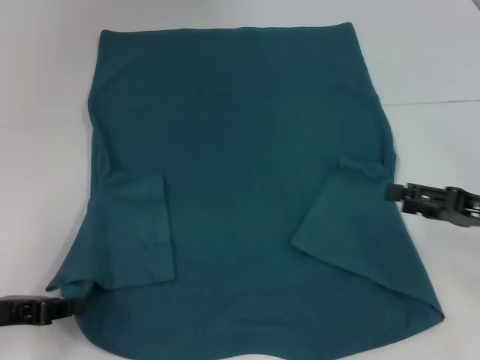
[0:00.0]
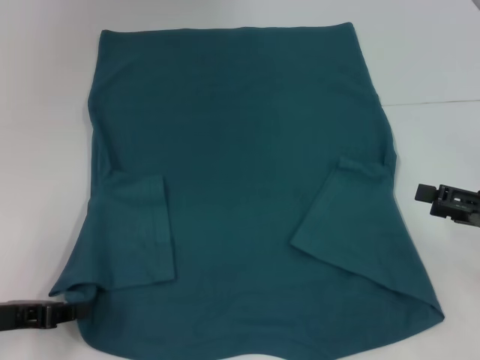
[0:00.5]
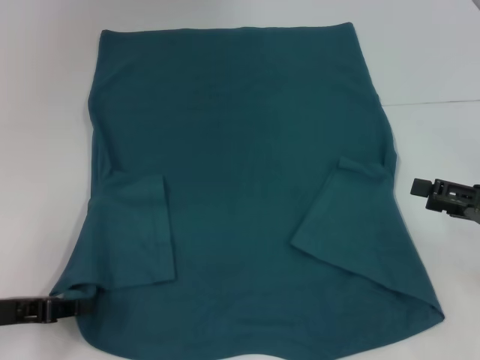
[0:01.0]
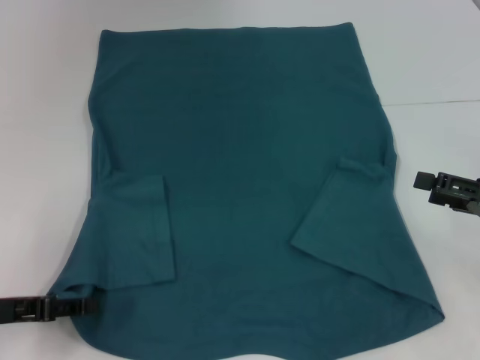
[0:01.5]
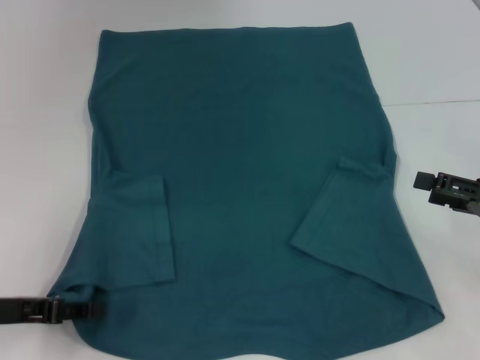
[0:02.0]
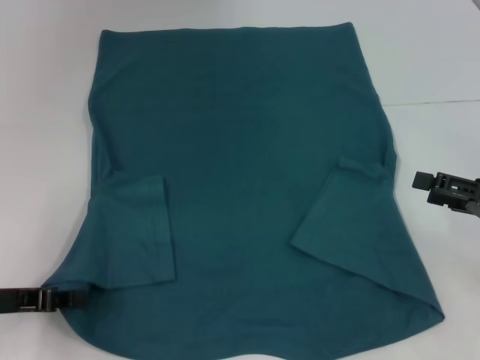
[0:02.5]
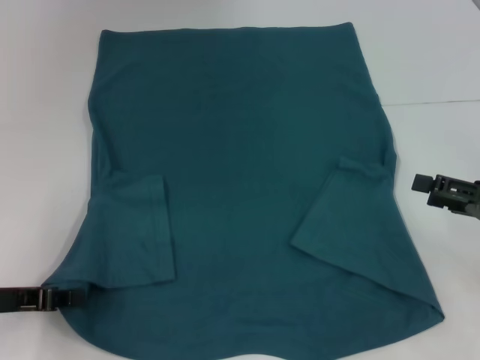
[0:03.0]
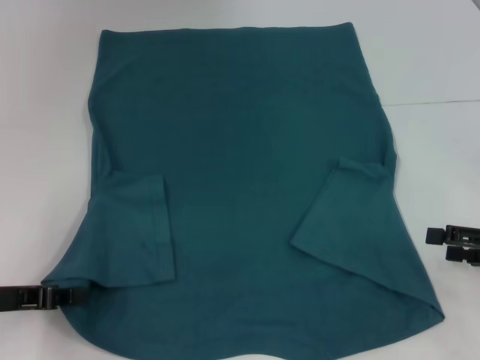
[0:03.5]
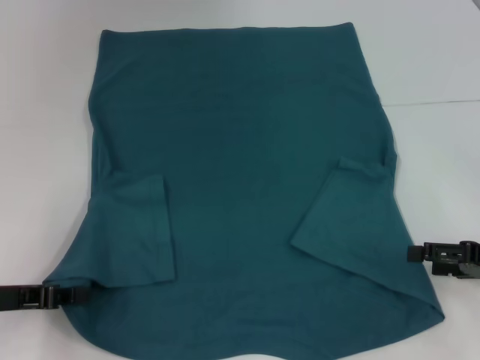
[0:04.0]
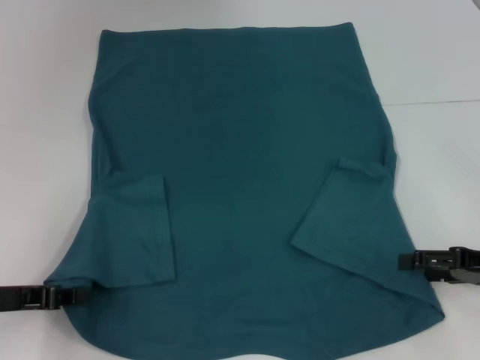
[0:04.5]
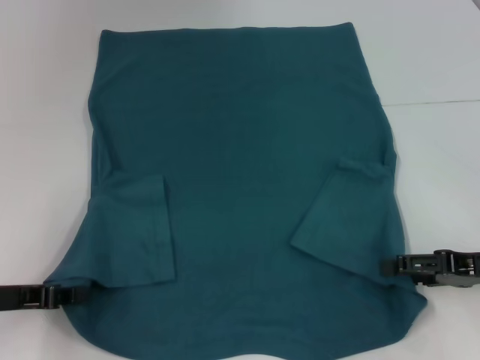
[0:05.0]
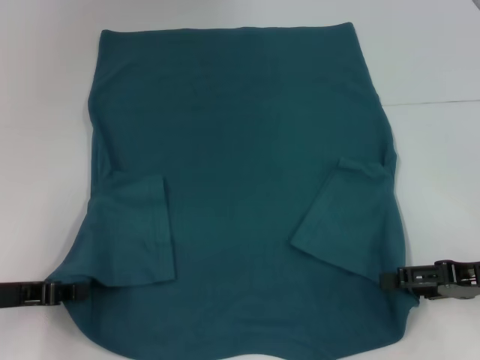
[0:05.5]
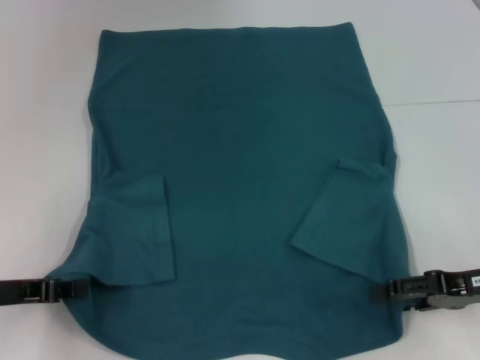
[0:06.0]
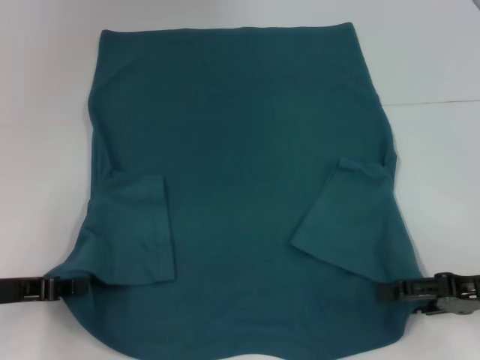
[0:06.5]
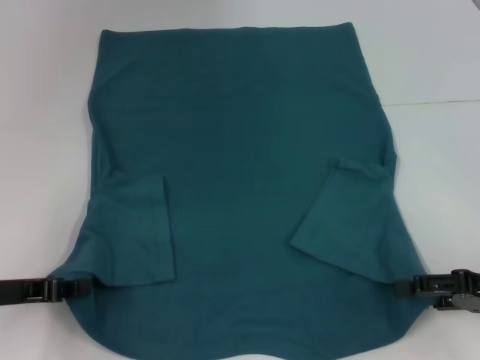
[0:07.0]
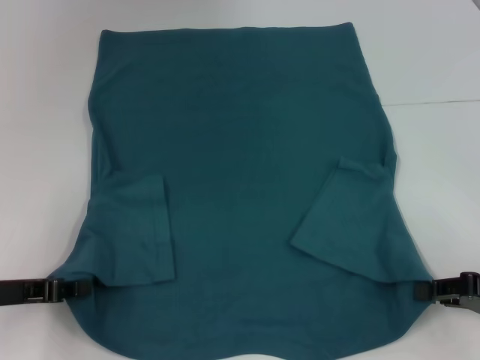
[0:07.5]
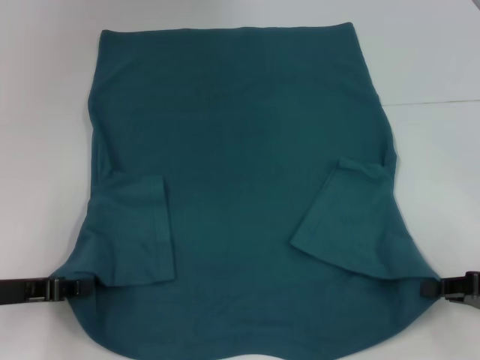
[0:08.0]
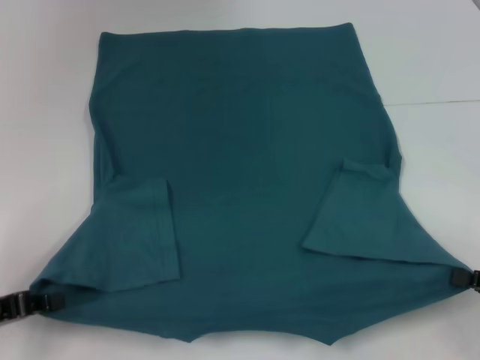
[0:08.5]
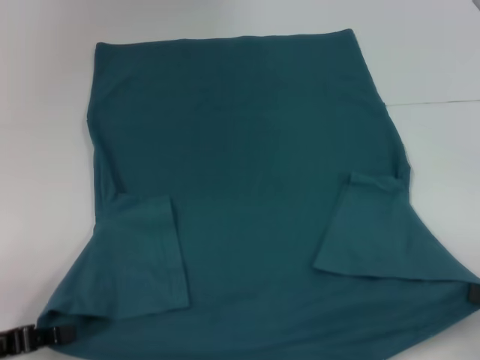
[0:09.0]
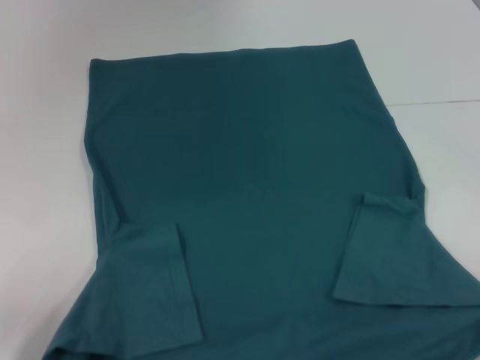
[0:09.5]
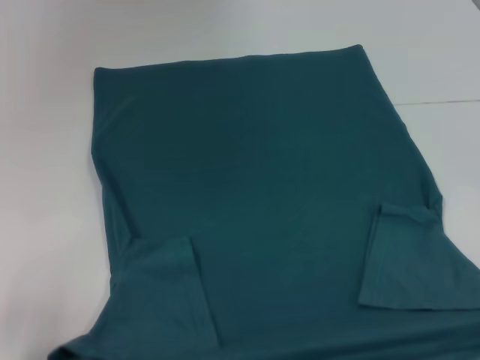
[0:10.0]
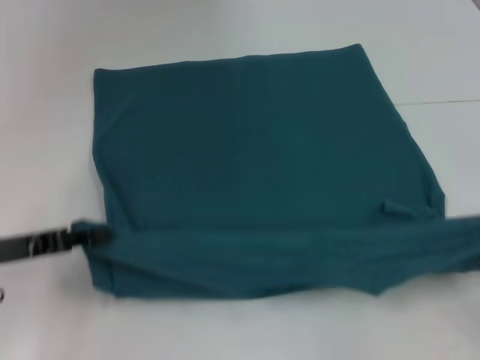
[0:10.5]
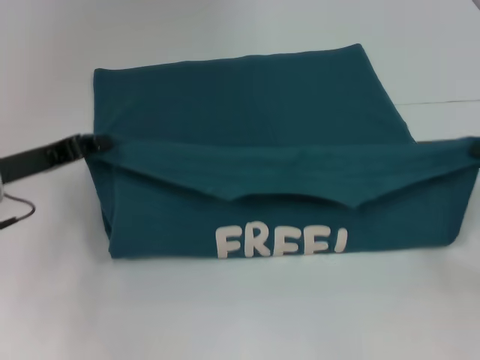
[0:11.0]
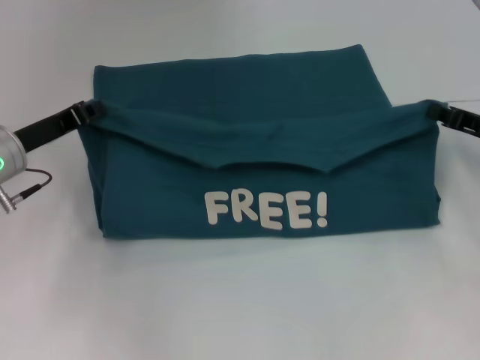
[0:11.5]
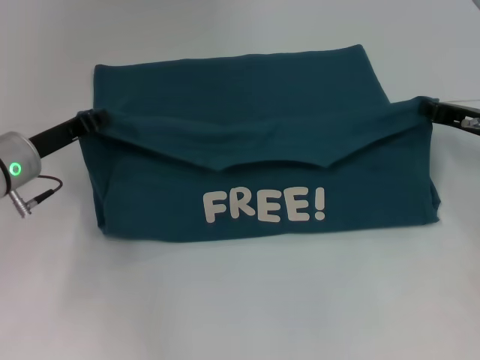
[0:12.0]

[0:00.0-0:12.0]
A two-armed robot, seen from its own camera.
Step, 0:00.0 to 0:02.5: Grab the bottom left corner with your left hand.
Step, 0:03.0 to 0:08.0: Grab the bottom right corner with your right hand.
0:00.0 to 0:02.0: The left gripper opens up.
0:02.0 to 0:04.0: The left gripper closes.
0:04.0 to 0:06.0: The grippers move only a little.
0:06.0 to 0:08.0: The right gripper shifts by roughly 5 cm, and closes its fingers.
0:08.0 to 0:10.0: The right gripper is displaced backward and to the right by some 15 cm. The left gripper heads backward, covering about 10 cm.
0:10.0 to 0:12.0: The two grippers go about 25 cm forward.

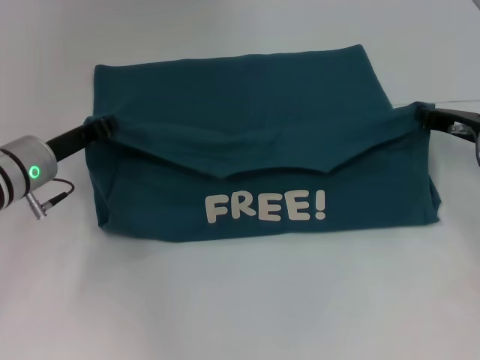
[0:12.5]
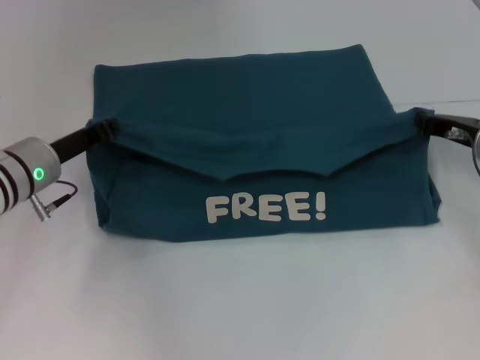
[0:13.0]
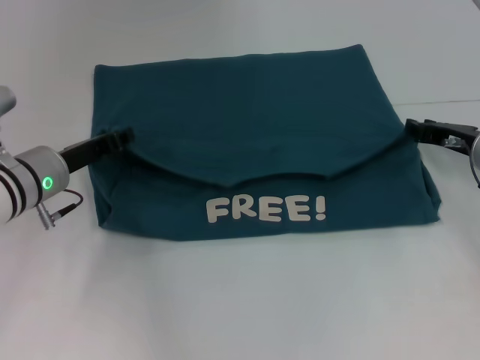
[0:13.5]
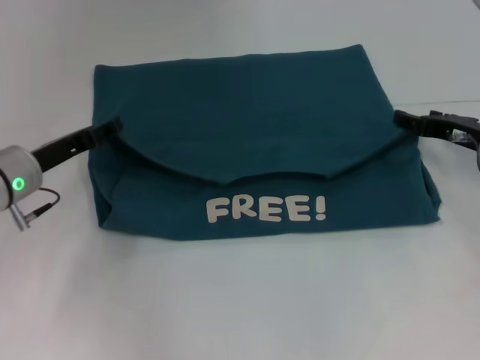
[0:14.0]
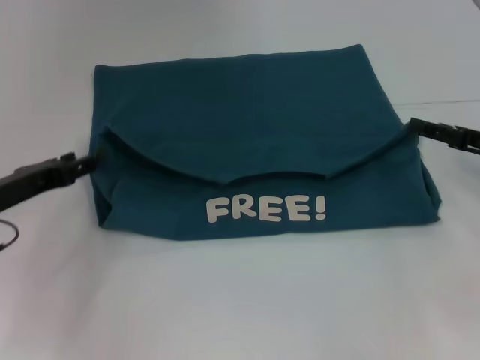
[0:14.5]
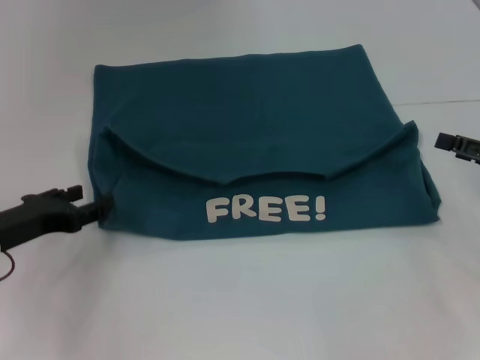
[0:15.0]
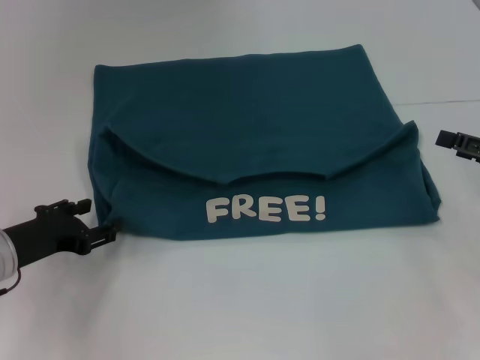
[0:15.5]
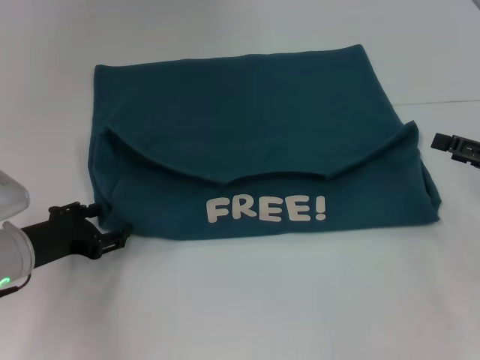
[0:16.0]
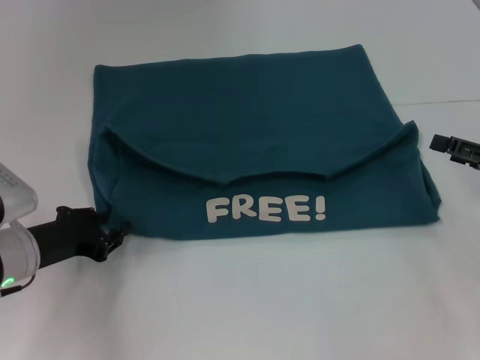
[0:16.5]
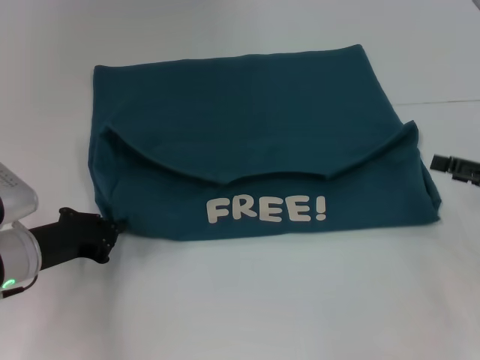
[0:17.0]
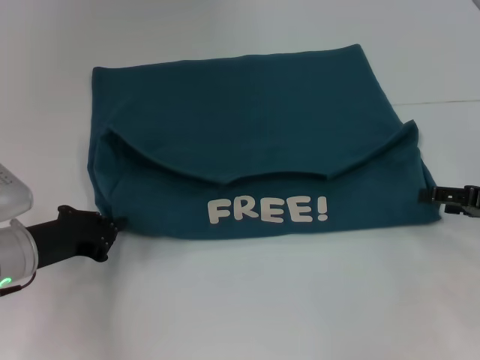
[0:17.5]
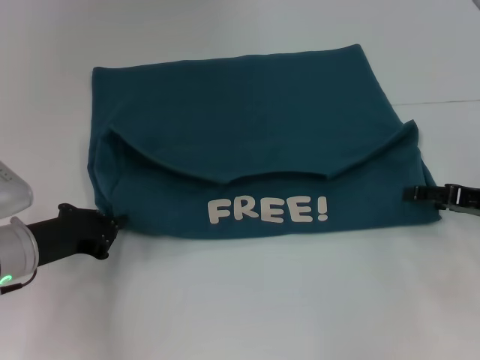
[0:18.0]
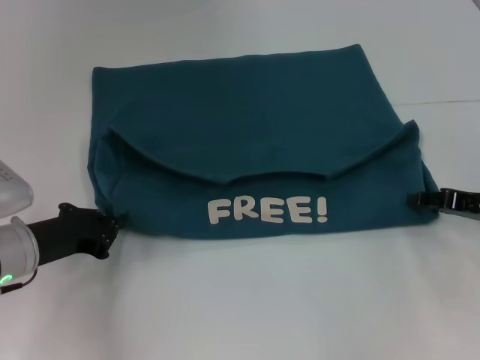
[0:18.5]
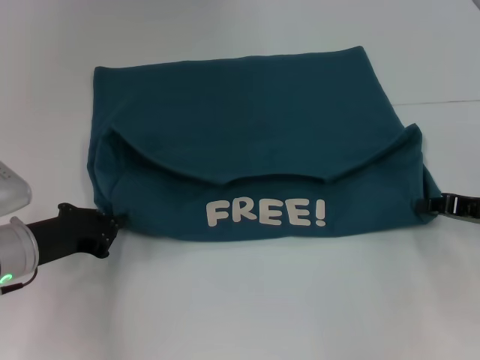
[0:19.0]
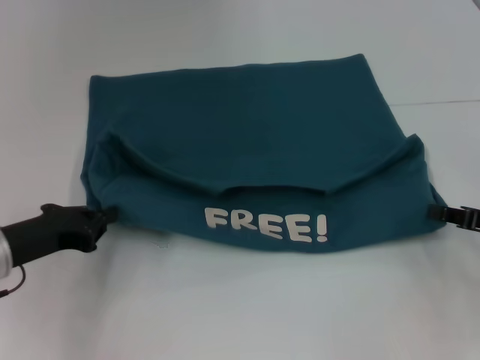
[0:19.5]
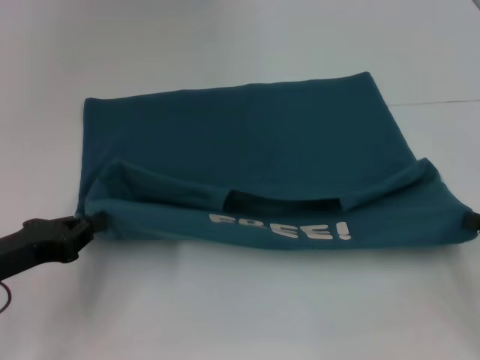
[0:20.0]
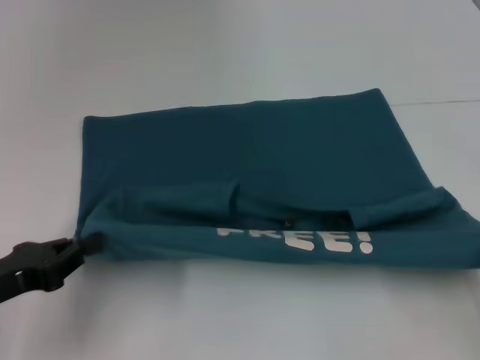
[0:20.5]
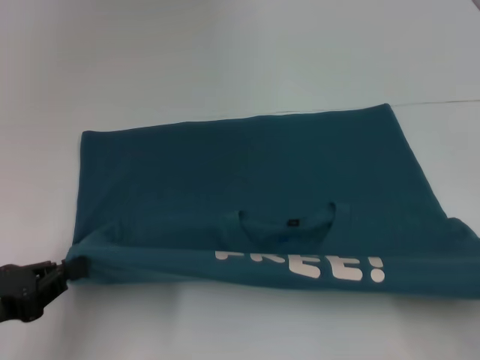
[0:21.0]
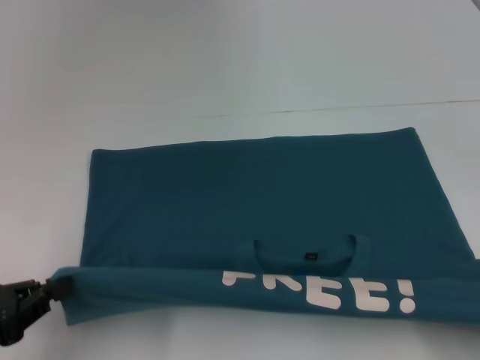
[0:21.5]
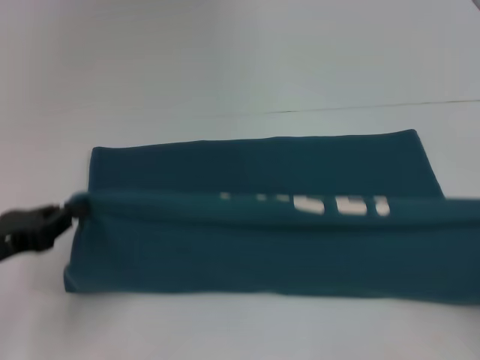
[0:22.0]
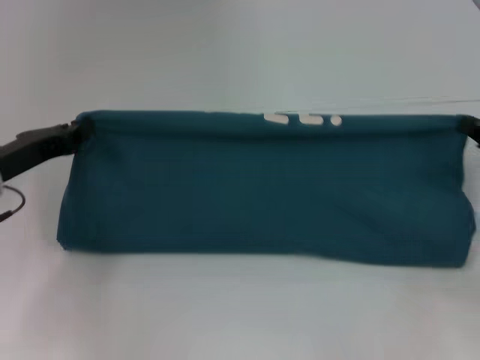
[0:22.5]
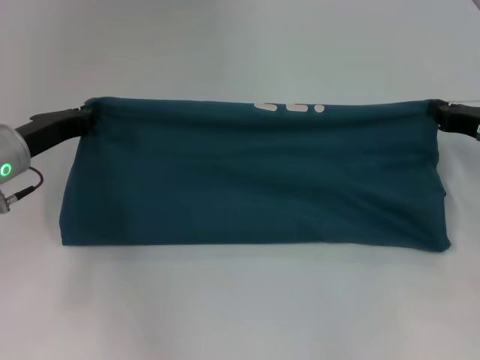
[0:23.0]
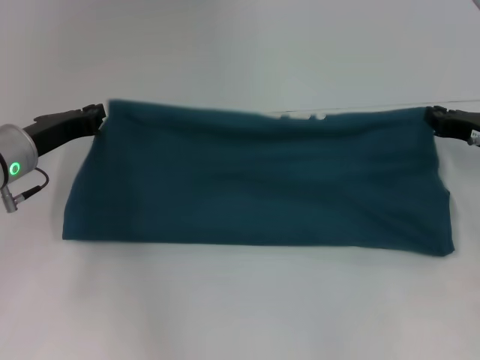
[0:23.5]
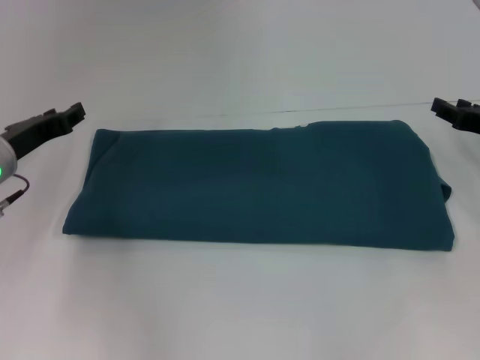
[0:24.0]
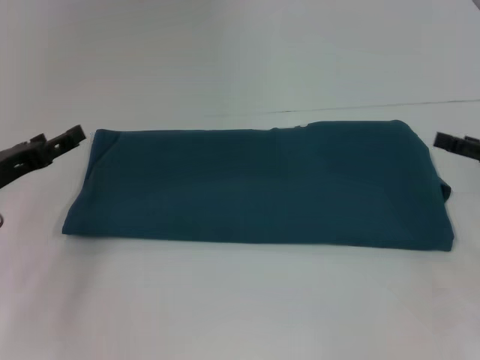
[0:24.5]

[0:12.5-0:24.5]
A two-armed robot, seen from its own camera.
Step, 0:14.0 to 0:20.5: Pull the clothes with your left hand.
Step, 0:14.0 to 0:20.5: Pull the clothes with your right hand.
Step, 0:21.0 to 0:23.5: Fold the clothes to the left.
Step, 0:21.0 to 0:23.5: Fold the clothes to the right.
0:12.5 to 0:14.5: The right gripper heads backward, covering some 5 cm, and opens up. Meanwhile the left gripper is displaced backward and to the left by roughly 10 cm, and opens its fingers.
0:14.5 to 0:16.5: The left gripper moves roughly 5 cm.
0:16.5 to 0:18.5: The left gripper closes up.
0:18.5 to 0:20.5: The left gripper travels backward by about 10 cm. Meanwhile the right gripper travels backward by some 15 cm, and closes up.
0:20.5 to 0:22.5: The two grippers go approximately 15 cm forward.
0:22.5 to 0:24.5: The right gripper opens; the left gripper opens up.

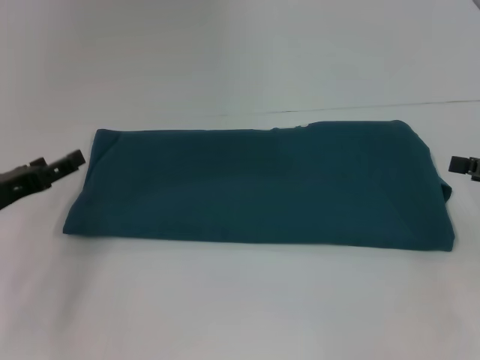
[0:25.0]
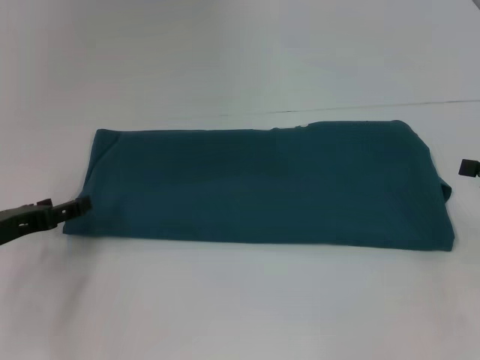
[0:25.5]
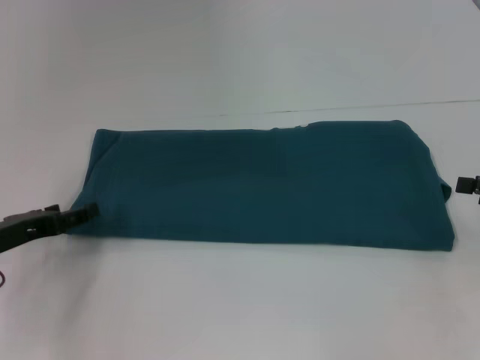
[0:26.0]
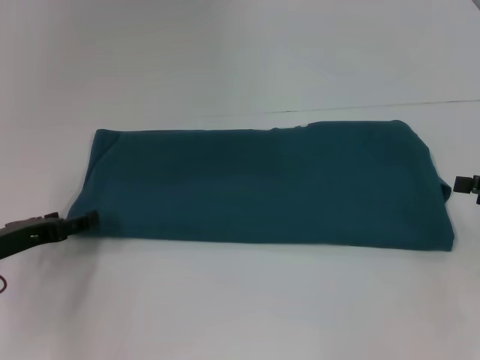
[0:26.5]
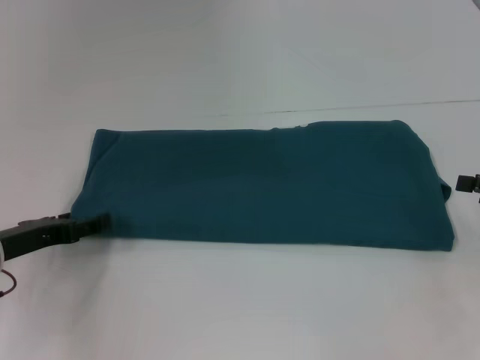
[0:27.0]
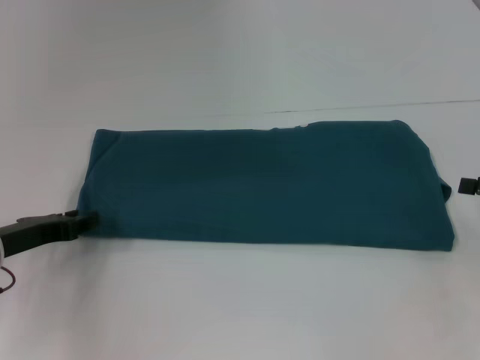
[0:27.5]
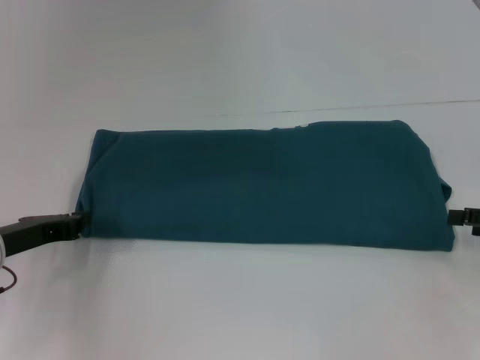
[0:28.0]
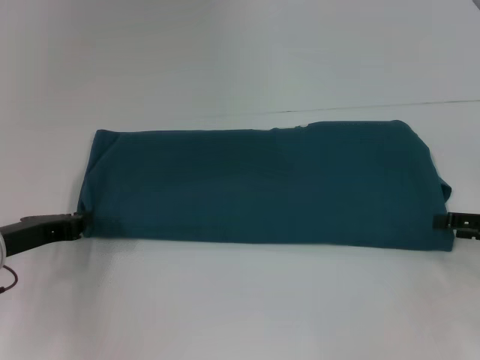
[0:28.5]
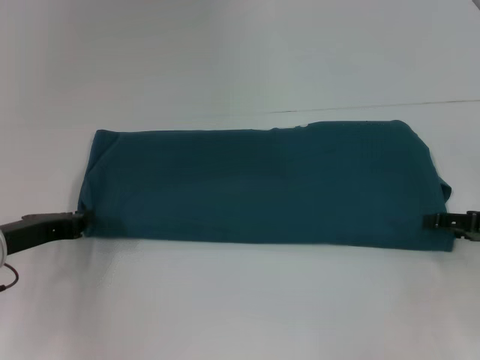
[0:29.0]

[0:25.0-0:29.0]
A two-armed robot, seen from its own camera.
0:25.0 to 0:27.0: There are only small adjustments of the grippers.
0:27.0 to 0:29.0: The left gripper closes.
